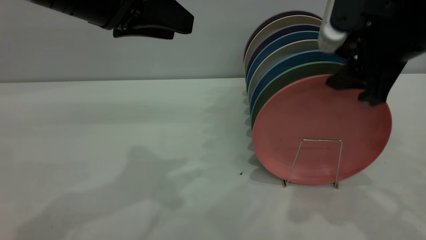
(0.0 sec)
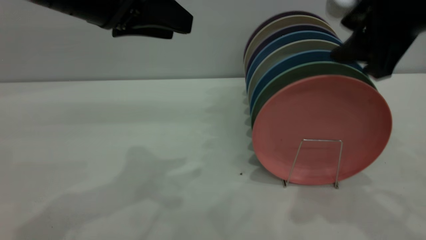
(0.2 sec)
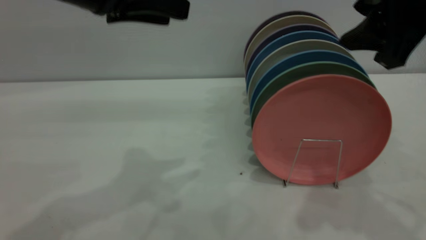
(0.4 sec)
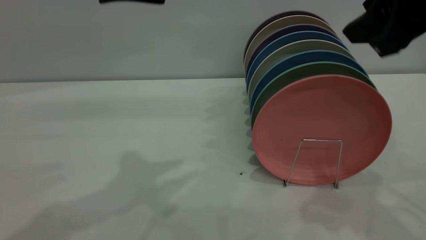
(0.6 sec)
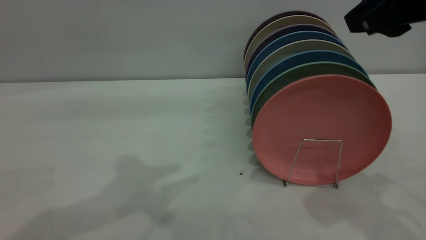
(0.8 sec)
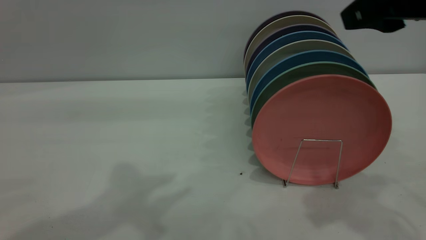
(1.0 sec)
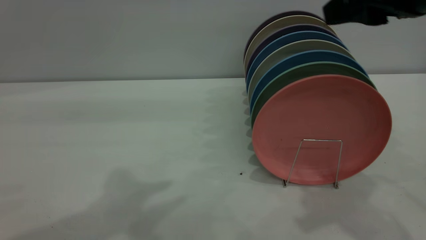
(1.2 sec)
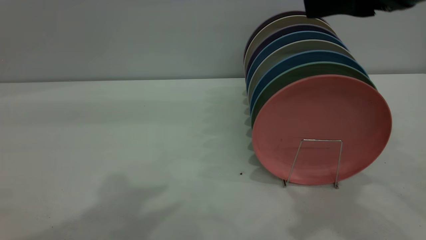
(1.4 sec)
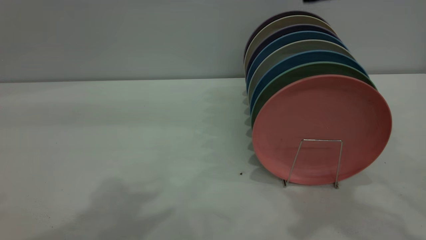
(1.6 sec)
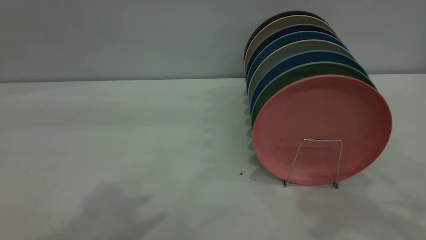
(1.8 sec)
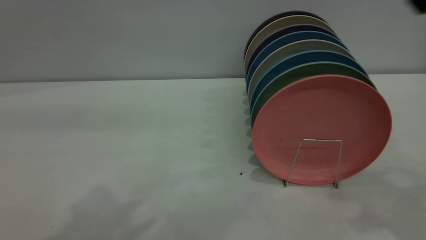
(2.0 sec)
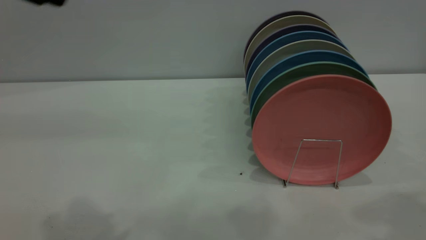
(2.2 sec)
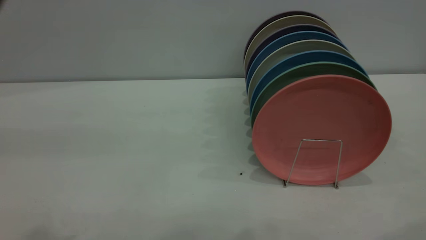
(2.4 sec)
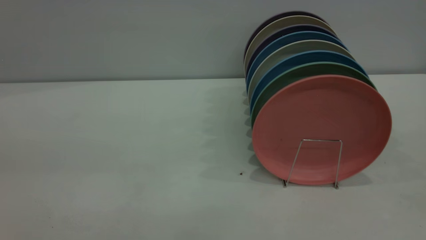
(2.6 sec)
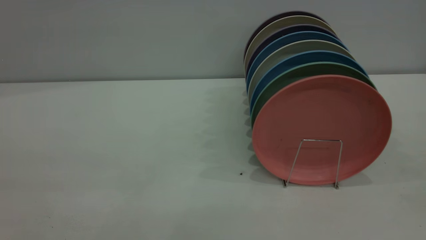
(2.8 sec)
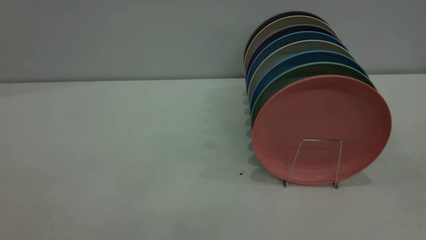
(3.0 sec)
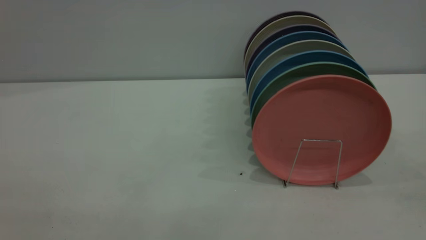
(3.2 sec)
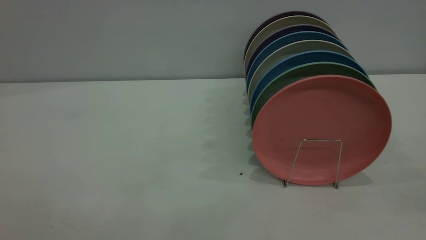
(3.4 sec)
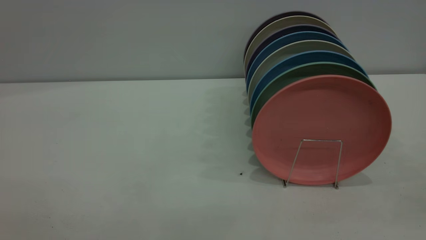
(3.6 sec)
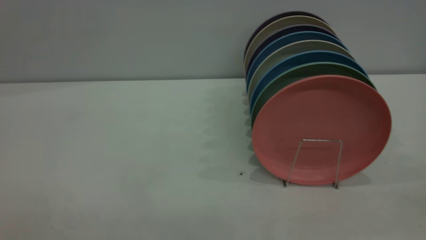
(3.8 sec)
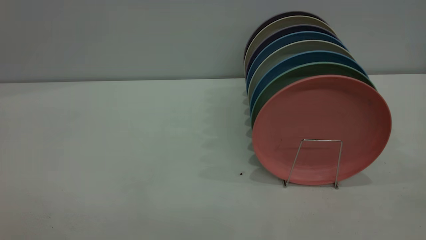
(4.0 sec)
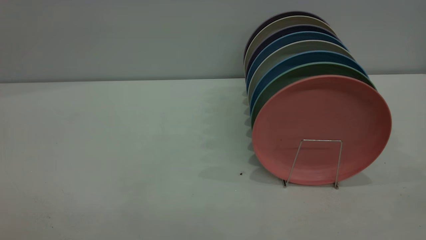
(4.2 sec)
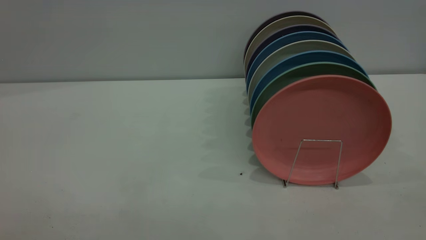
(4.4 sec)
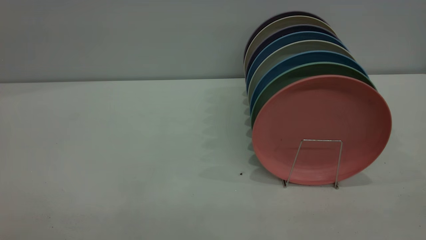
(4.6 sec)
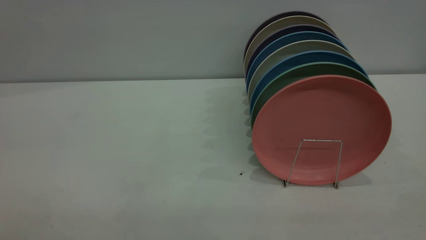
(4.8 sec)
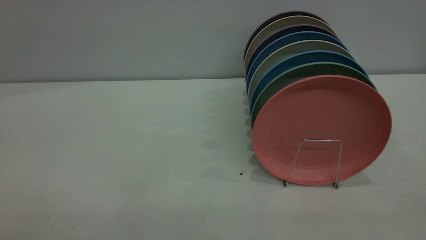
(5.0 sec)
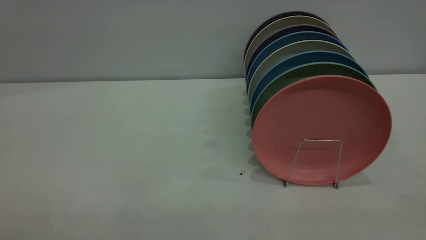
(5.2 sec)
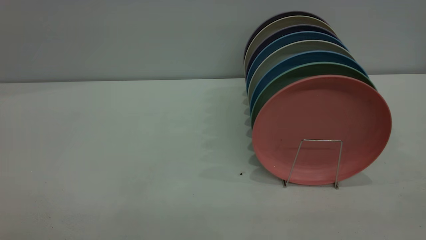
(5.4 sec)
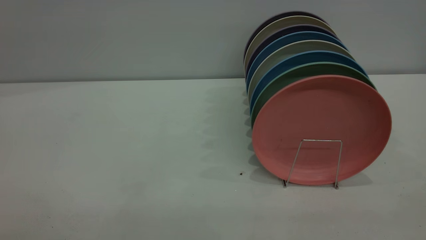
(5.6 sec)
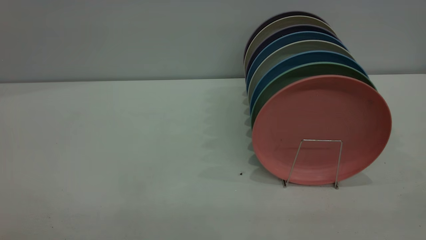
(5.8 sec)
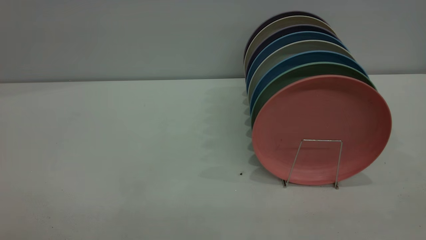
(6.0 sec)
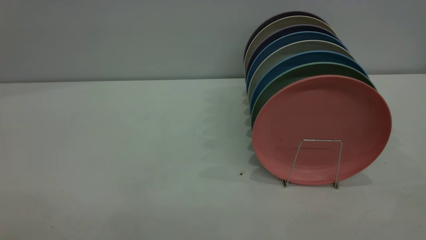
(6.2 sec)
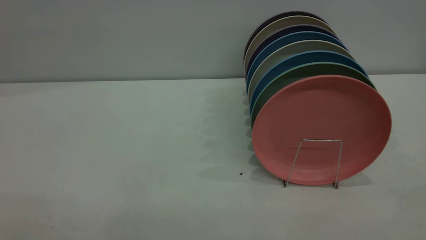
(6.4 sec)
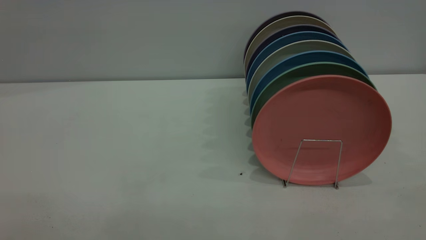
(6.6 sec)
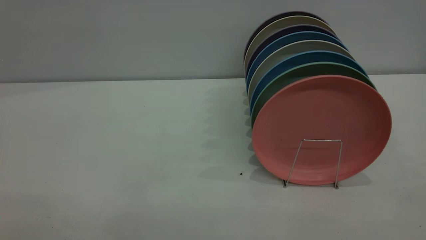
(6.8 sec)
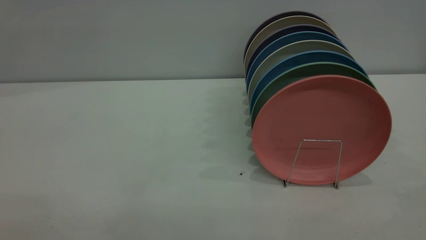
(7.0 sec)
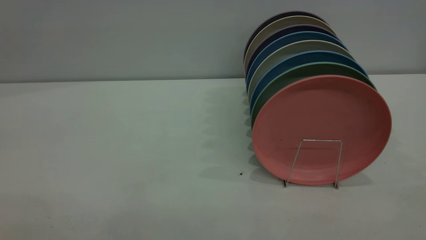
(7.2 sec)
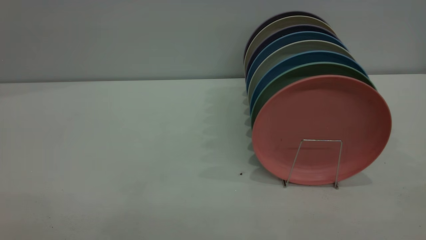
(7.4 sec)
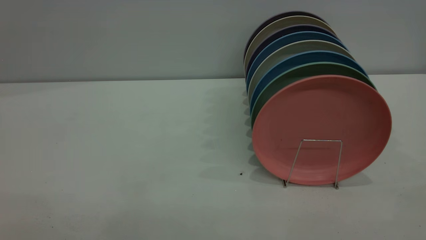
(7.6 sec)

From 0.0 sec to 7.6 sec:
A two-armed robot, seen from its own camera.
Task of the whole recording: put the plate on the plate rack.
From 0.0 sec to 1.6 sec: The right gripper heads upward, covering roughly 10 cm, and closes up. Meanwhile the left gripper travels upward and backward by some 10 cm.
